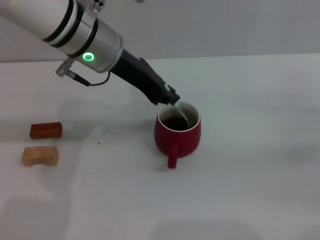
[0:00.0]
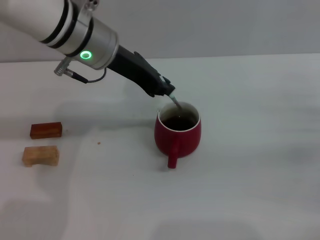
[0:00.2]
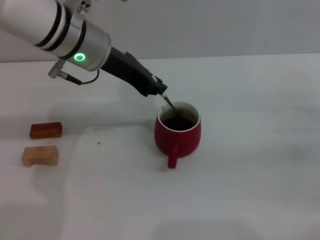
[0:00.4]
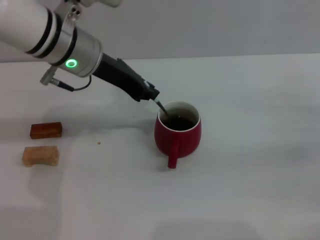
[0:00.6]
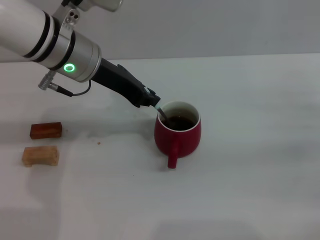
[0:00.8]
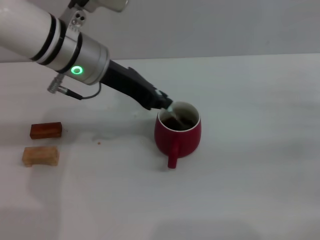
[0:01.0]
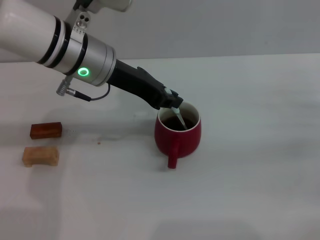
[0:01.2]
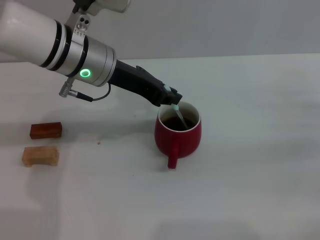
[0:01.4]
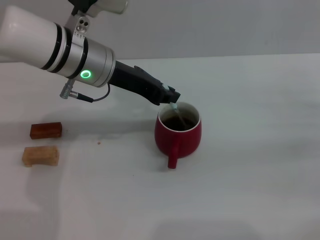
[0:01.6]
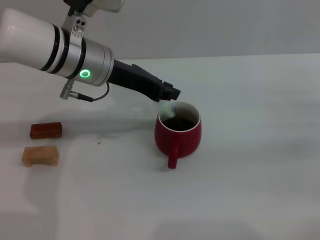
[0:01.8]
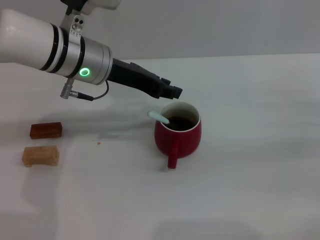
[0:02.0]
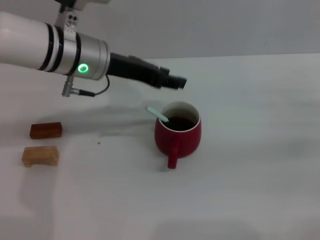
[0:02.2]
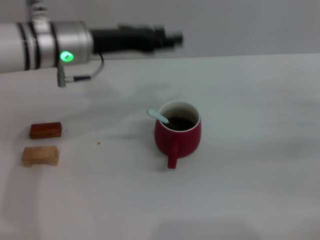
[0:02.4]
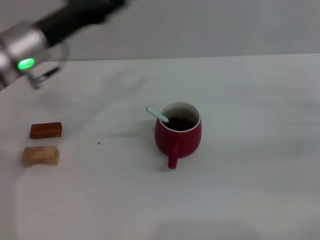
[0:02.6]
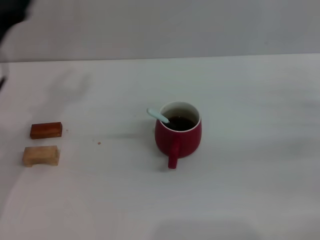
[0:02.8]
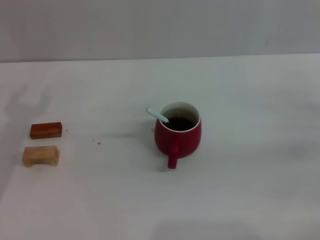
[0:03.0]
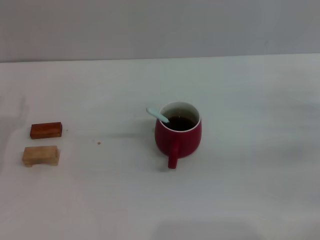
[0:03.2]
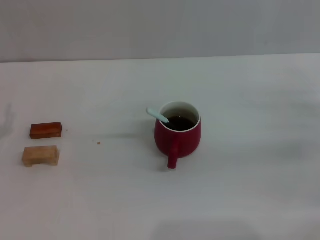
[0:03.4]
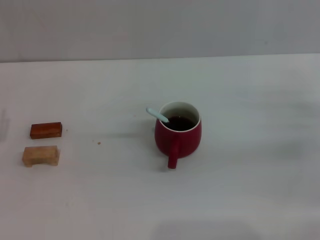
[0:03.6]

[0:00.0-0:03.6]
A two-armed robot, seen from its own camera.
Task of the whole recording: Move the red cup to the center, lift the blue spoon, stir it three times in the cup, and put the spoon into the cup.
Step, 0:00.0 to 0:02.0: Stir the coffee in the cup with the left gripper.
0:00.0 to 0:01.8: The grippers stay close to where they were, moving slightly.
0:01.8 to 0:03.6: The left gripper travels to the left, backward and downward by about 30 cm, and opens up.

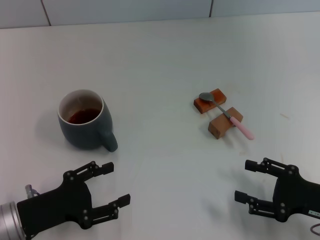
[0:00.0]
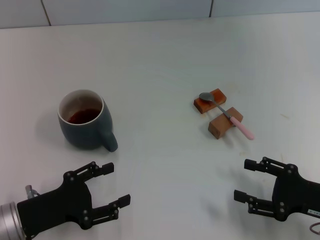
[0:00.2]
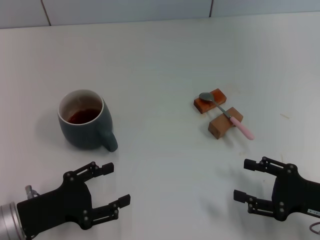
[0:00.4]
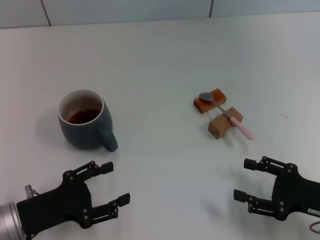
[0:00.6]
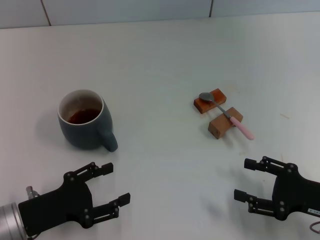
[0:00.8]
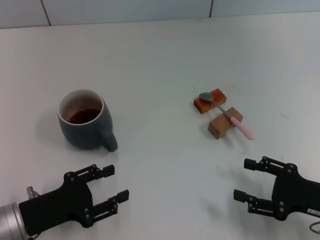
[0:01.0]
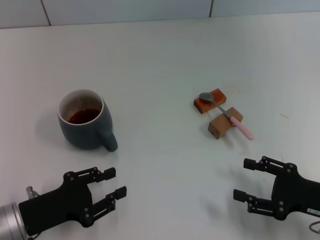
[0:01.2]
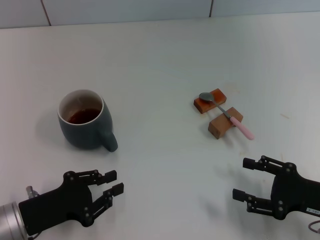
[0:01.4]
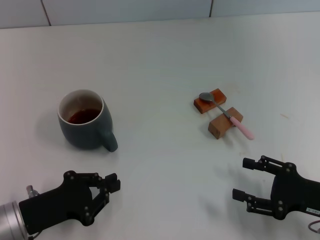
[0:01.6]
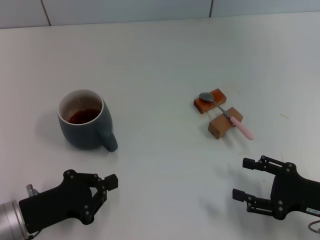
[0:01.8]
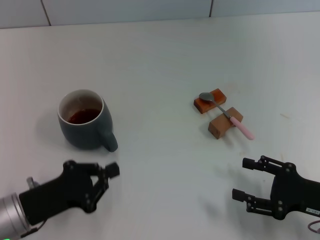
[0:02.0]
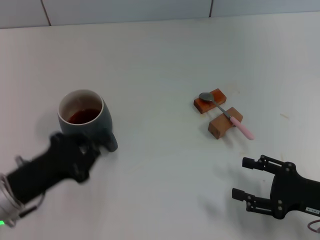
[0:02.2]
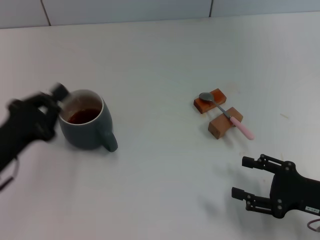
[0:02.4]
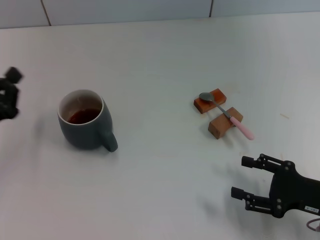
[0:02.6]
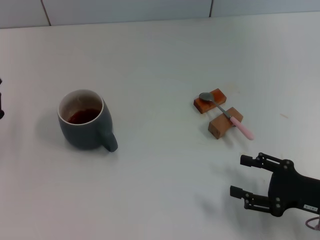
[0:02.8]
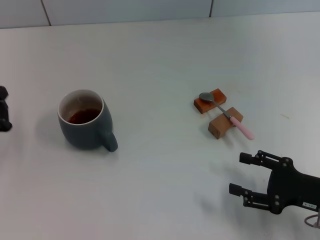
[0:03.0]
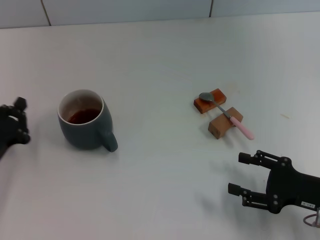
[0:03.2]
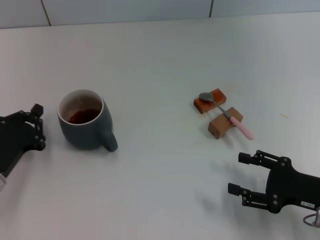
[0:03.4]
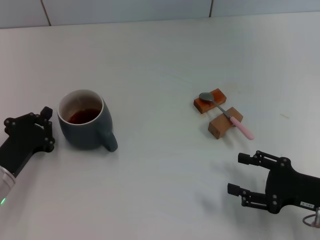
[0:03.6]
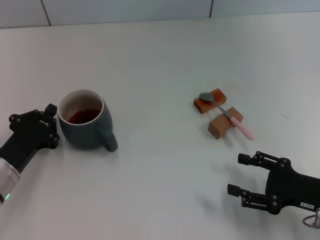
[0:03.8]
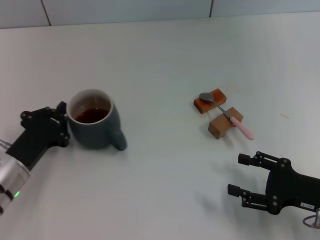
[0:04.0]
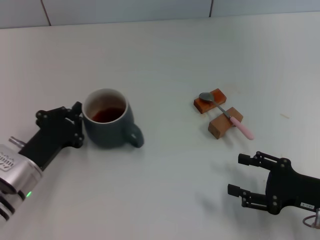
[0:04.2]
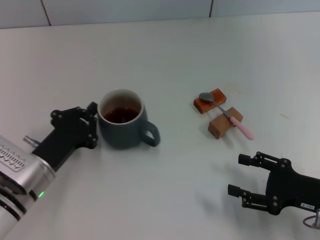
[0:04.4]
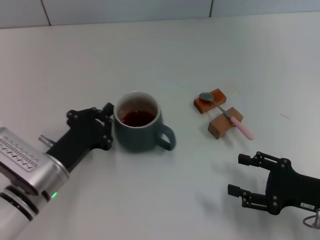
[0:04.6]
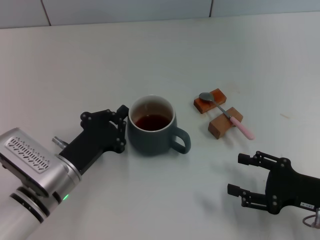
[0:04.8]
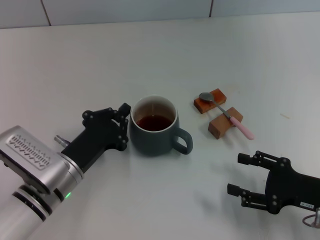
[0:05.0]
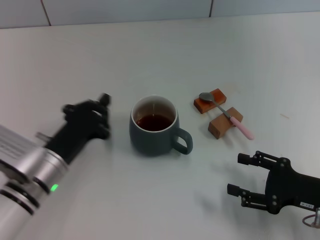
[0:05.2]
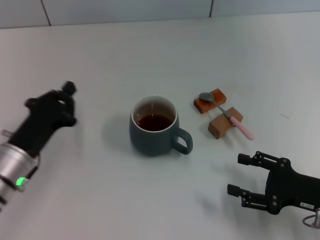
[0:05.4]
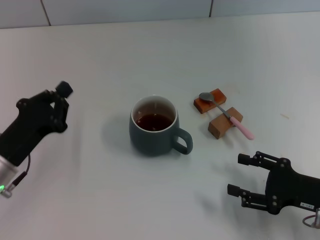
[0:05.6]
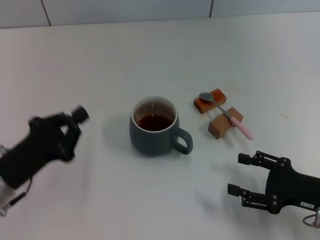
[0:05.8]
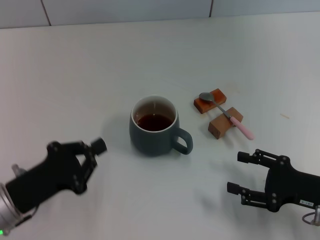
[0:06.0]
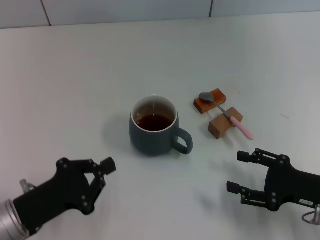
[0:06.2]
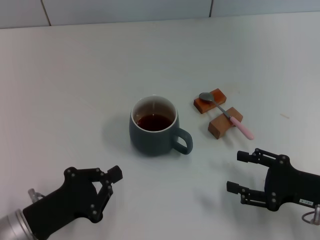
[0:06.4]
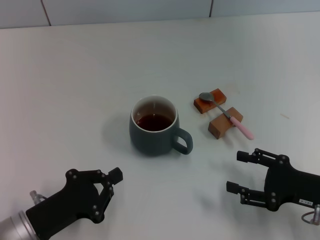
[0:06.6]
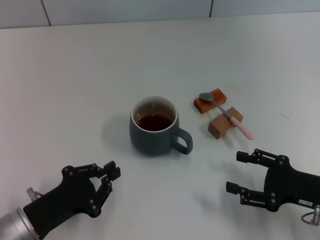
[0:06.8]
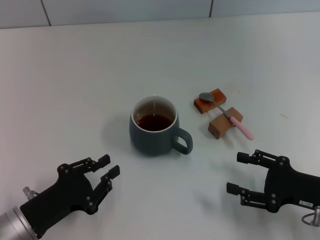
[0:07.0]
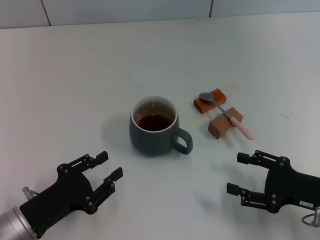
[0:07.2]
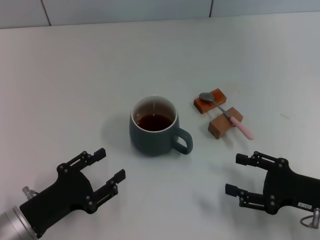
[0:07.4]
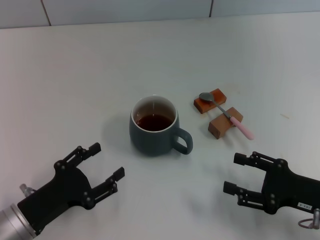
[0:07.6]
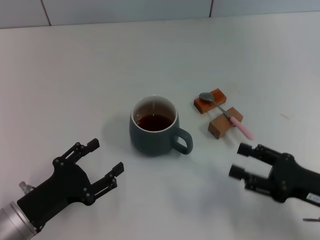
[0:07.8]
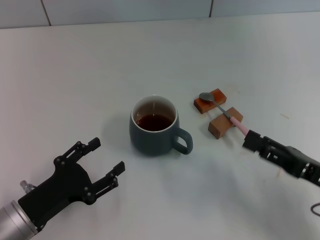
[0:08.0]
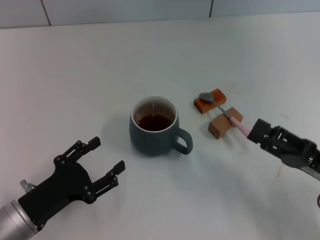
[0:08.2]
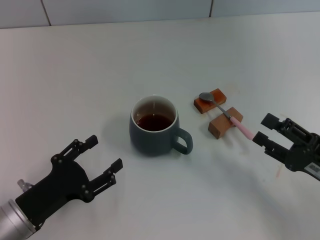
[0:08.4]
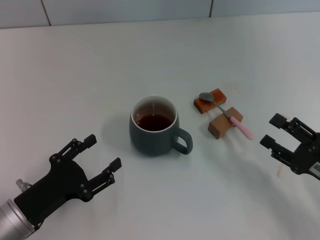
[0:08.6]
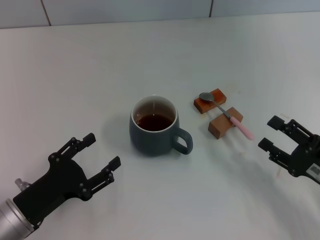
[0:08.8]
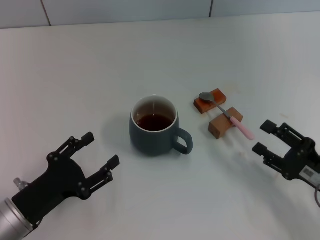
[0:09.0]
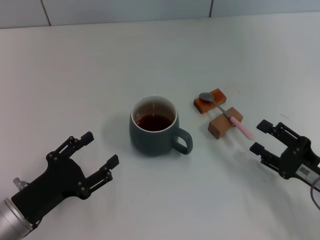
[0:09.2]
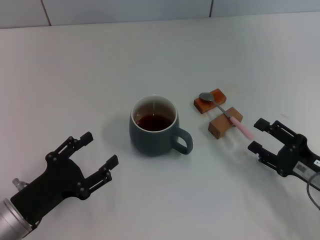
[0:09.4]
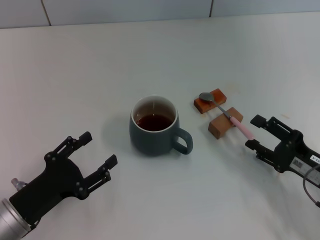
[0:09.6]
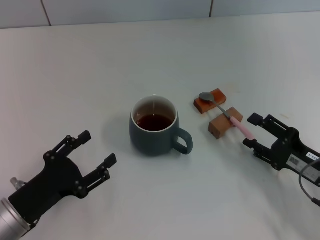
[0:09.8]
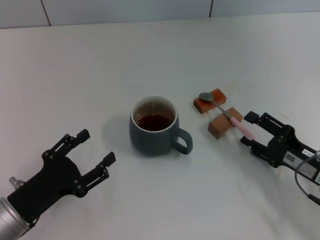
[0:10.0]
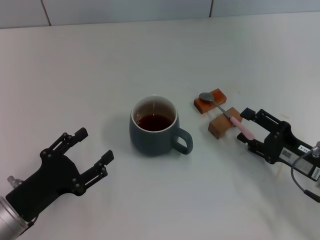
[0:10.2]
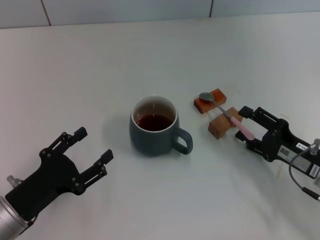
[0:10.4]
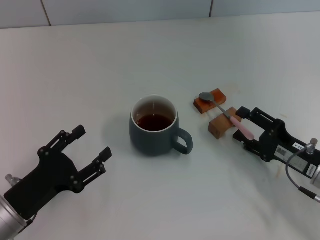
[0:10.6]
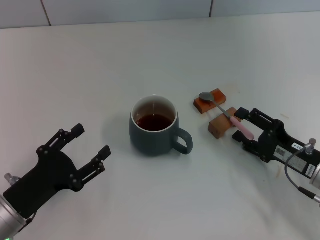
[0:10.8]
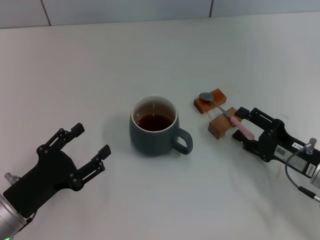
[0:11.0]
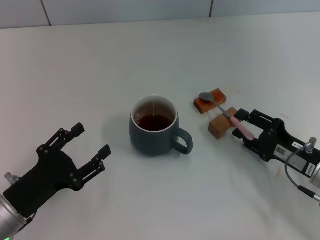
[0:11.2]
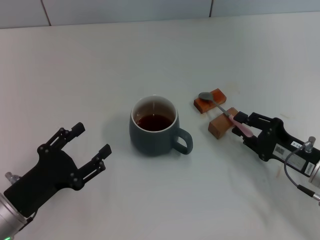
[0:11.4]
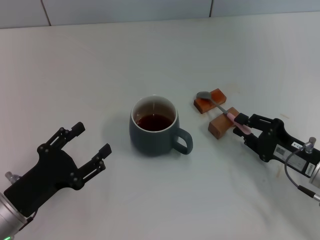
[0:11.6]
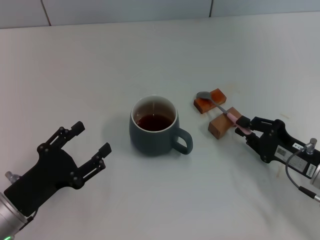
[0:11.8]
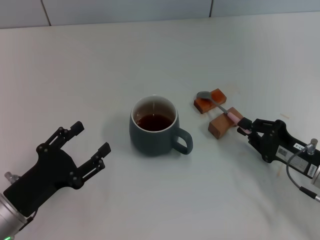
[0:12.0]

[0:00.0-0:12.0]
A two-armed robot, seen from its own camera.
Task of the whole recording: Move the grey cup to the center, lift the pink spoon, stir it three times in the cup, and put the spoon into the cup.
Step, 0:00.0 to 0:05.0: Move the cup with coffee to the center of view with the left gripper.
0:00.0 to 0:01.6: The left gripper closes.
0:01.6 to 0:03.0: The left gripper goes roughly 10 cm to the left and forward, and closes its fingers.
0:03.0 to 0:04.4: The left gripper moves to the right, about 10 cm.
0:04.4 to 0:06.0: The left gripper moves some 5 cm.
0:06.0 to 0:07.6: The left gripper opens.
0:09.0 to 0:10.4: There are only small adjustments of the grippers.
0:10.4 to 0:12.0: The right gripper closes.

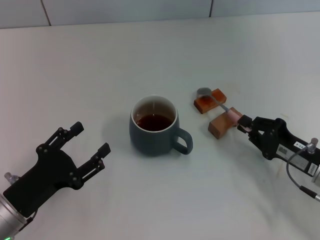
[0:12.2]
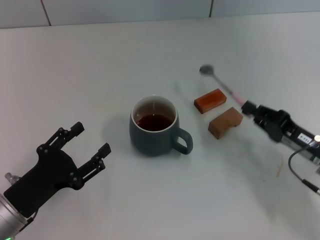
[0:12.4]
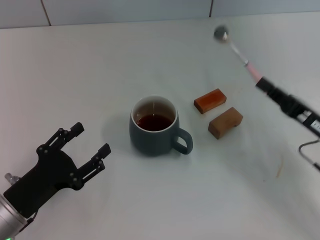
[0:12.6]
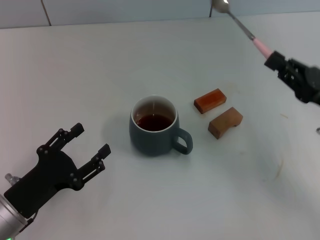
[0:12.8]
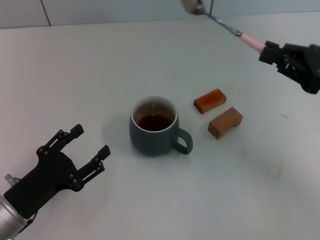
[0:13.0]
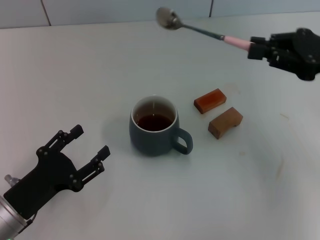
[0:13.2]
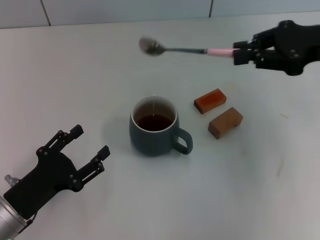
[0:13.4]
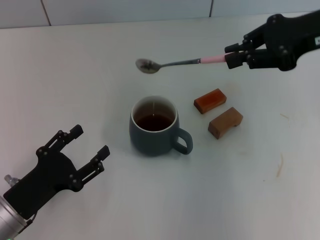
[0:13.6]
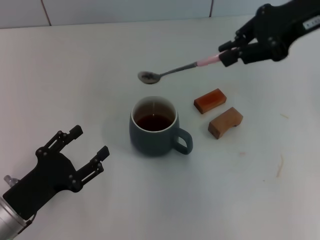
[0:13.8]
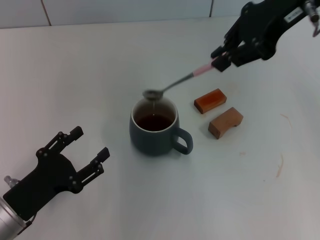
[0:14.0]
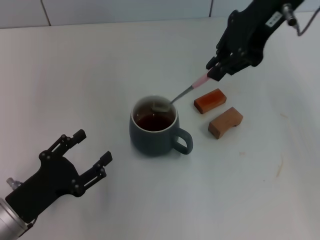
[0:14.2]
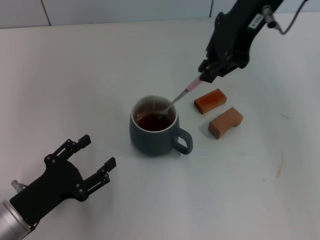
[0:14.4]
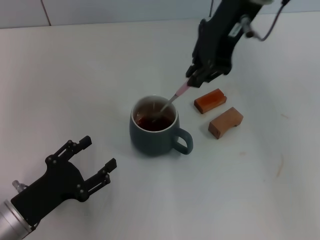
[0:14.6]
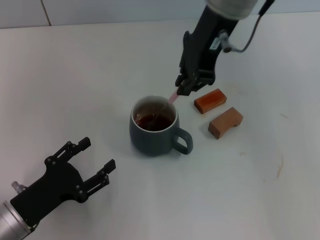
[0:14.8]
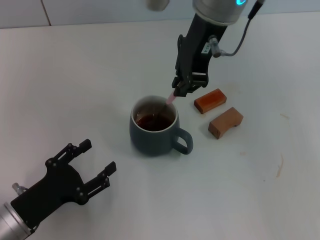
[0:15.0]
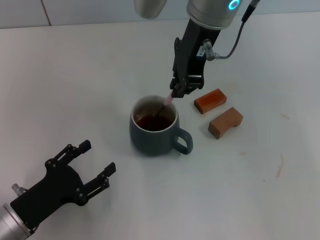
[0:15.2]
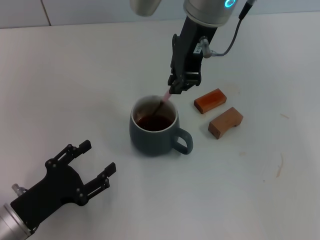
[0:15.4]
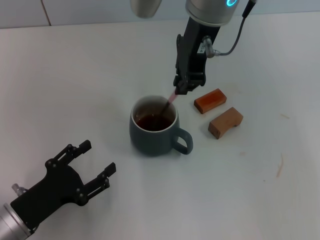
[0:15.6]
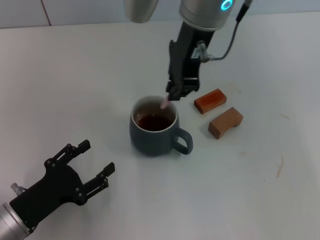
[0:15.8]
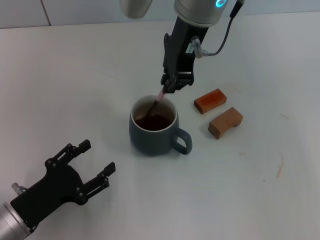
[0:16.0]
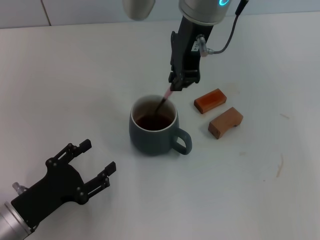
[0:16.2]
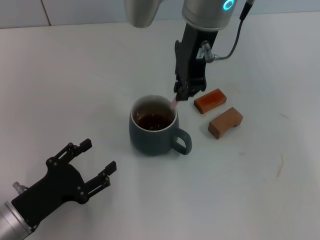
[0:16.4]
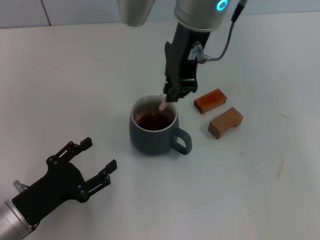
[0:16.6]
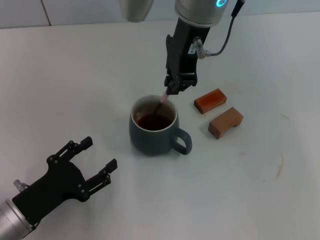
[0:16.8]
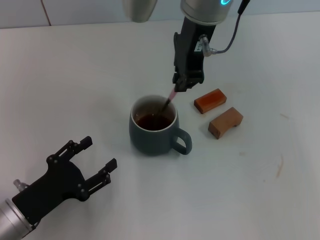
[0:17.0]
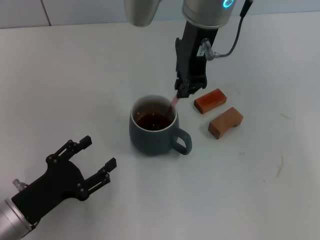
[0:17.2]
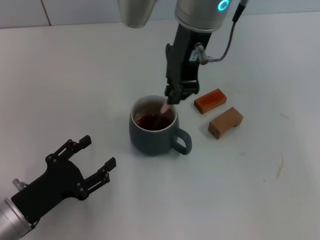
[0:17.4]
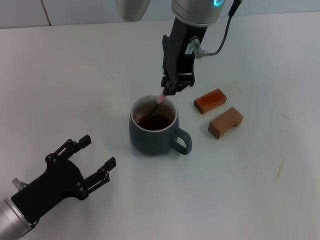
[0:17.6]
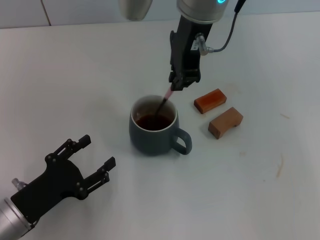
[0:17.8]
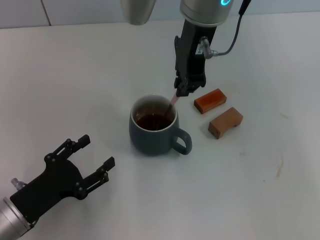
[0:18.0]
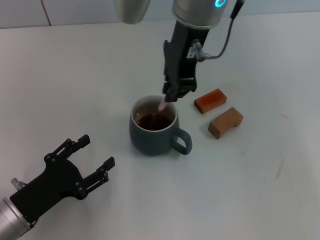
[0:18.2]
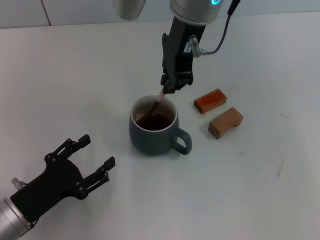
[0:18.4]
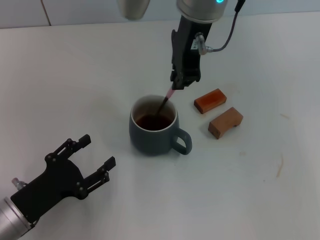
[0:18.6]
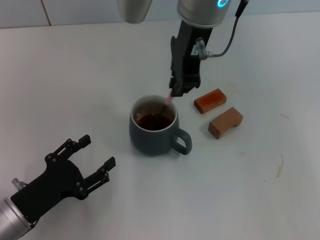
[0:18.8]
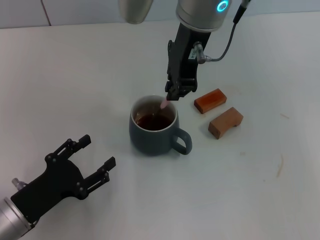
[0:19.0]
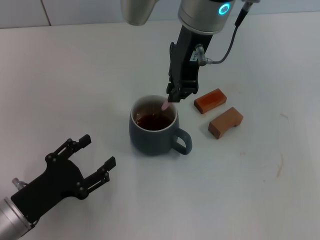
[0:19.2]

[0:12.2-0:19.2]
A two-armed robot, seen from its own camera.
Task of the whole recording: Move the grey cup to the center, lift the pink spoon, stir it three times in the cup, and put the spoon into the cup.
0:12.2 to 0:13.6: The right gripper heads upward and forward, covering approximately 25 cm.
0:13.6 to 0:15.0: The right gripper heads to the left, covering about 20 cm.
0:15.0 to 0:16.4: The grippers move only a little.
0:16.4 to 0:19.2: Neither gripper changes place.
